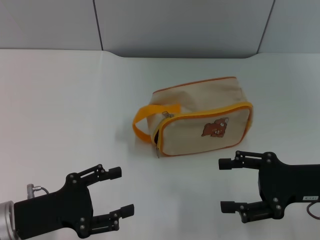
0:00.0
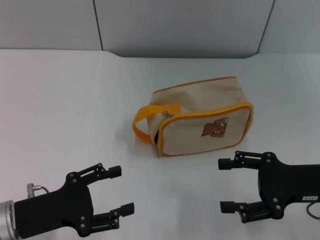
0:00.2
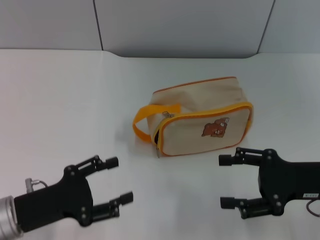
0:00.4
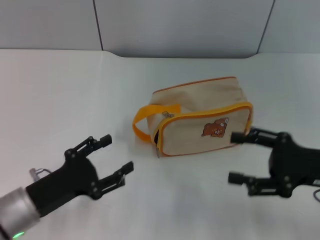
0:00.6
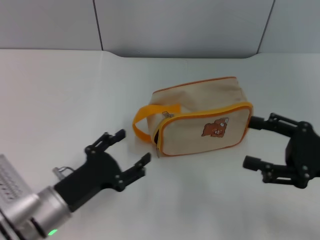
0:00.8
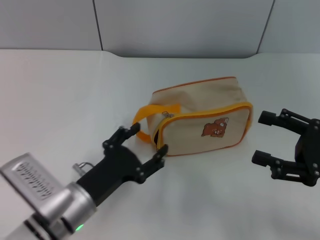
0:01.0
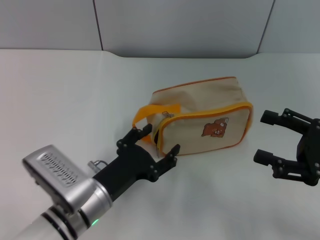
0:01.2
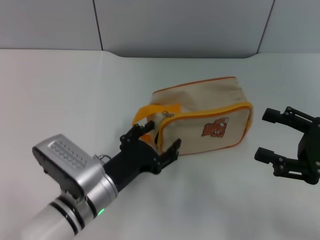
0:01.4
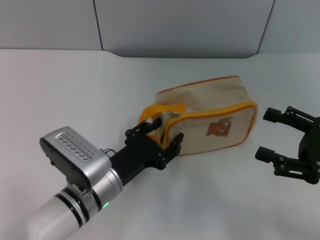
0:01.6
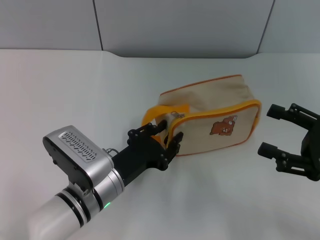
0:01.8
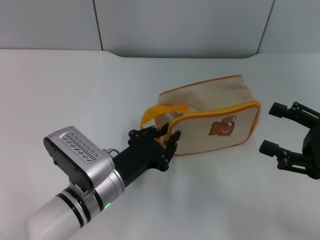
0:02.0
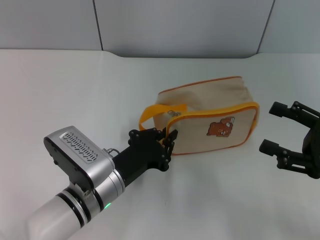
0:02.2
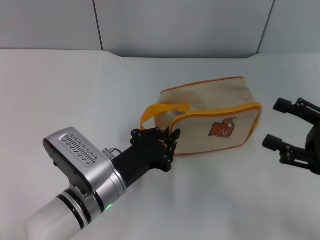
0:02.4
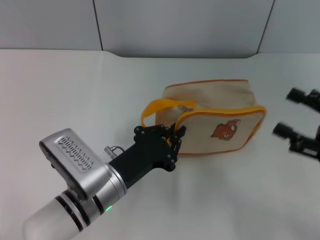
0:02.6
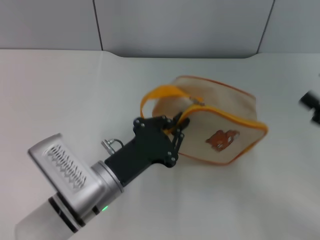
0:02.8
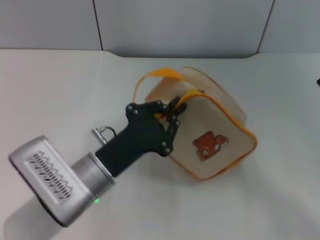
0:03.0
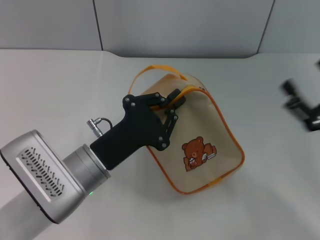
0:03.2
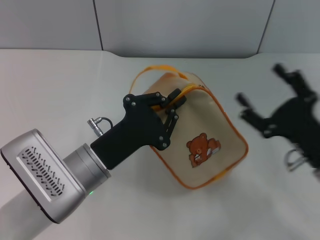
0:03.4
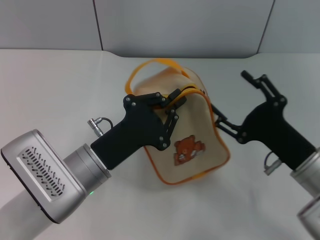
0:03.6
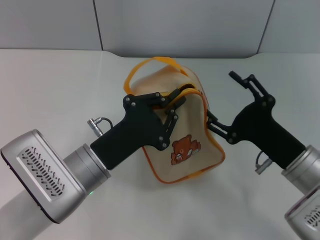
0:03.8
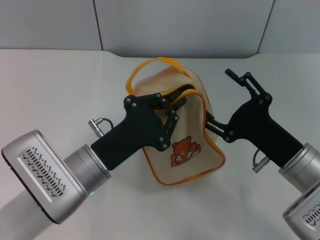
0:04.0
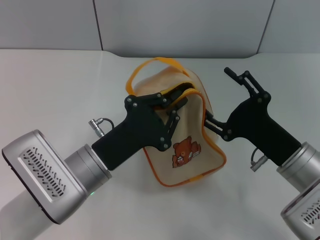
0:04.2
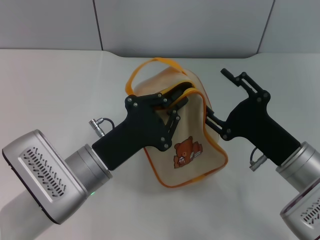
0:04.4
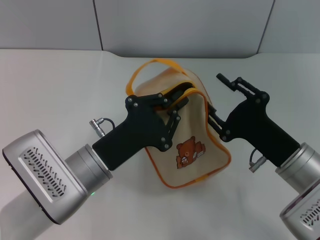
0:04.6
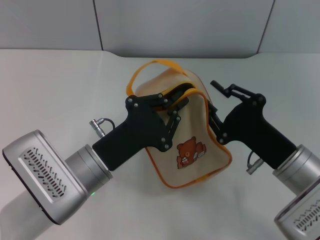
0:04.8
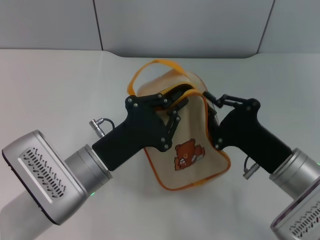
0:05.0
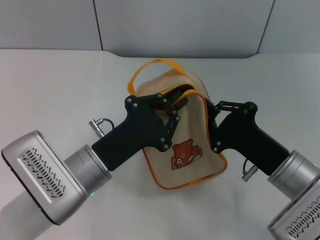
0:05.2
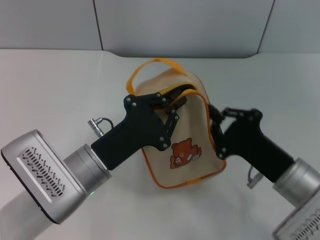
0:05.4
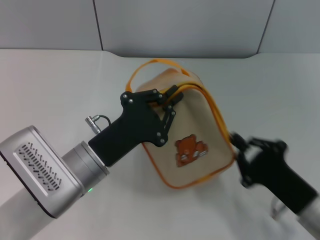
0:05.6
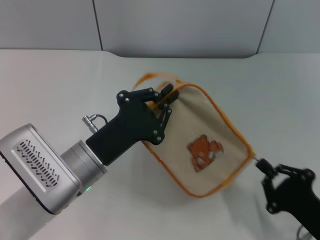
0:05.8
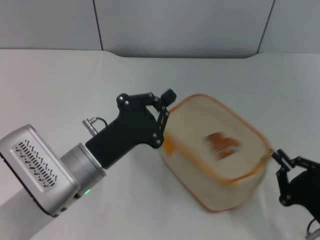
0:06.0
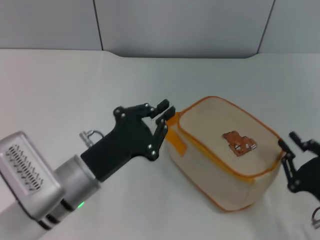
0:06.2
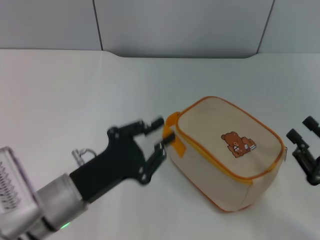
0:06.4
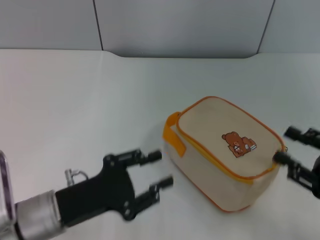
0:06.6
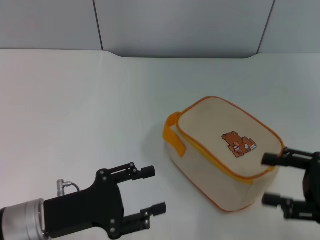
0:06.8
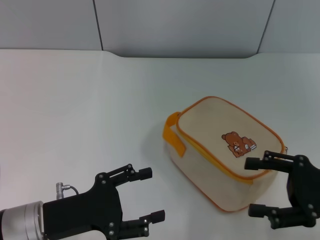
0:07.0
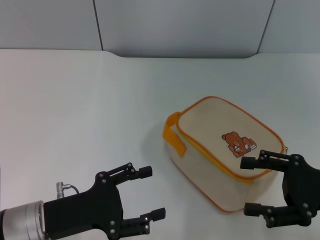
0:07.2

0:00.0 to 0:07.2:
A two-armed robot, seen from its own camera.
Step, 0:00.0 to 0:03.0: Pick up the bag with left gripper.
Step, 0:03.4 to 0:06.2: Unzip the zipper of bag with right gripper.
0:00.0 to 0:01.4: The left gripper goes some 15 cm to the right.
0:01.4 to 0:02.8: The left gripper closes.
0:02.8 to 0:04.4: The right gripper travels to the left by approximately 15 cm.
0:04.4 to 0:05.8: The right gripper is displaced backward, downward and to the right by about 15 cm, and closes.
0:05.8 to 0:07.2: The right gripper goes some 10 cm upward and forward, and opens up; the left gripper goes approximately 10 cm to the left and backward, and opens.

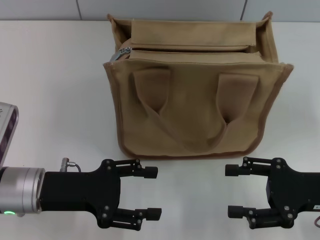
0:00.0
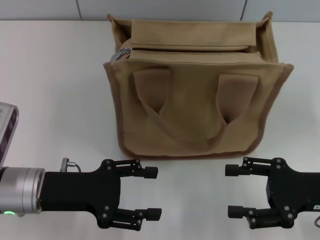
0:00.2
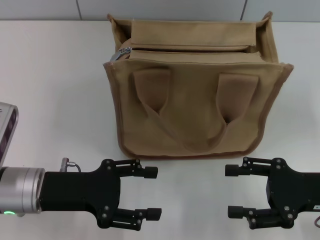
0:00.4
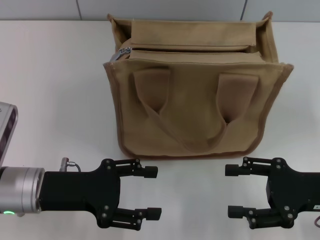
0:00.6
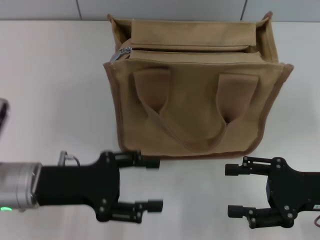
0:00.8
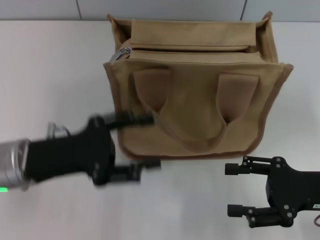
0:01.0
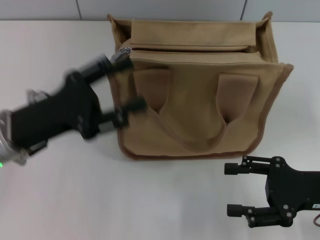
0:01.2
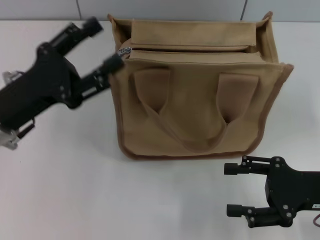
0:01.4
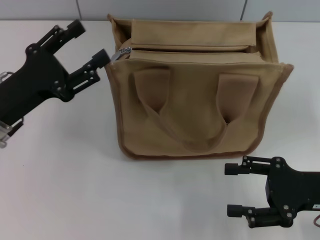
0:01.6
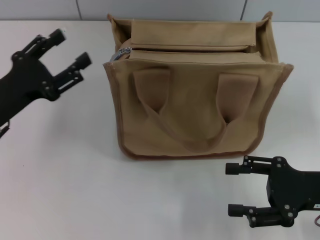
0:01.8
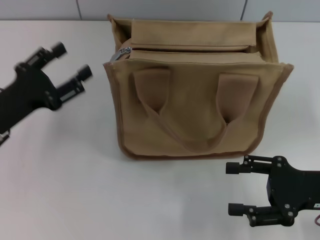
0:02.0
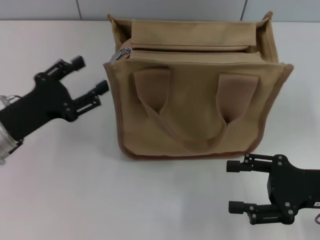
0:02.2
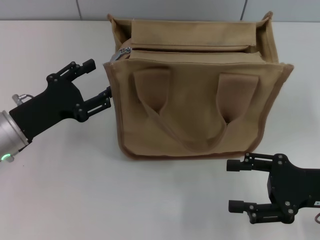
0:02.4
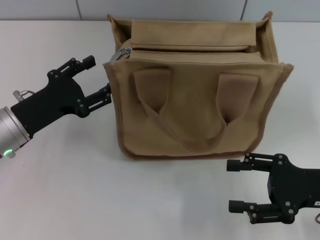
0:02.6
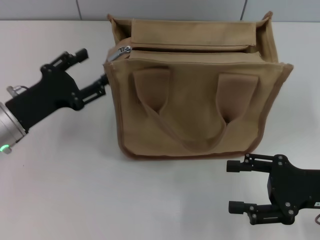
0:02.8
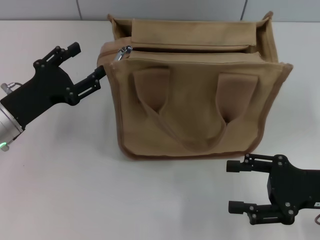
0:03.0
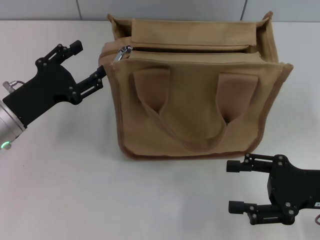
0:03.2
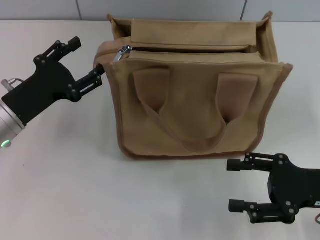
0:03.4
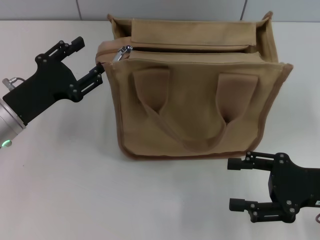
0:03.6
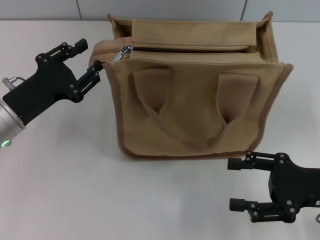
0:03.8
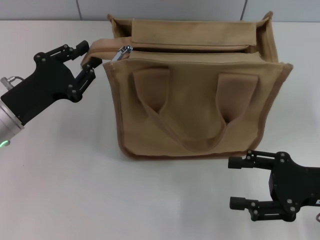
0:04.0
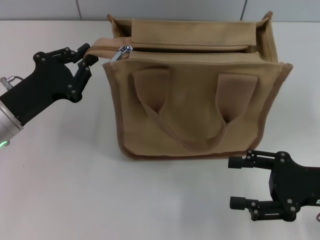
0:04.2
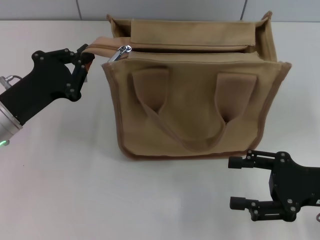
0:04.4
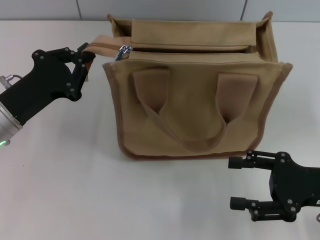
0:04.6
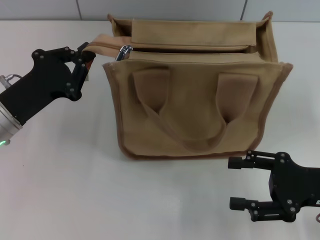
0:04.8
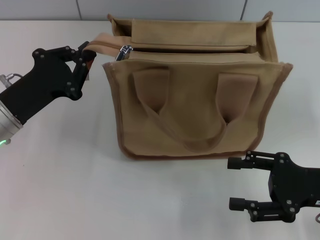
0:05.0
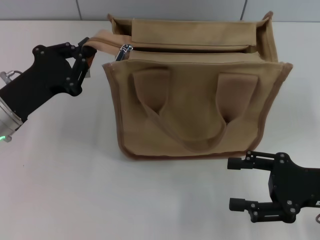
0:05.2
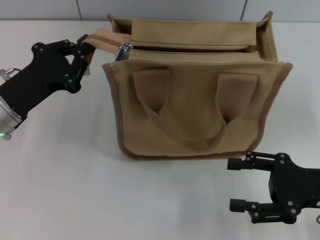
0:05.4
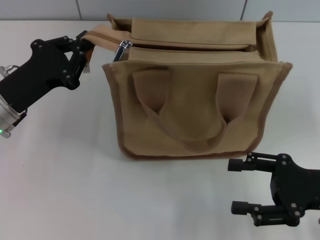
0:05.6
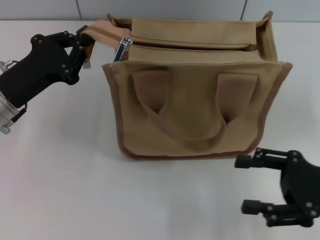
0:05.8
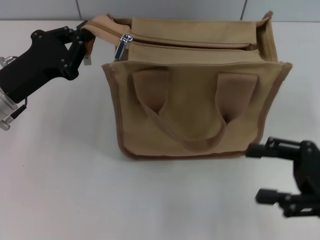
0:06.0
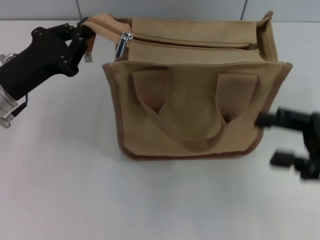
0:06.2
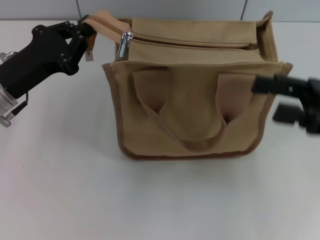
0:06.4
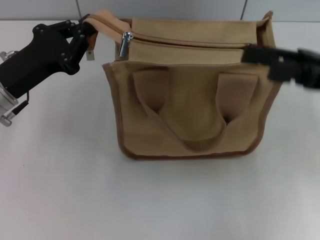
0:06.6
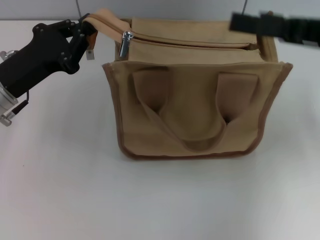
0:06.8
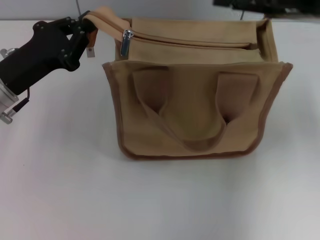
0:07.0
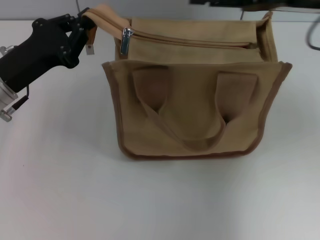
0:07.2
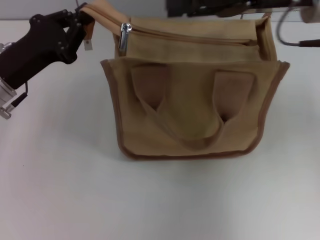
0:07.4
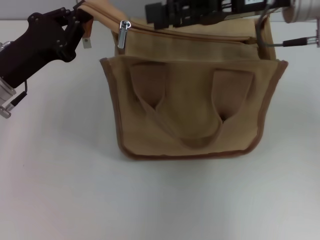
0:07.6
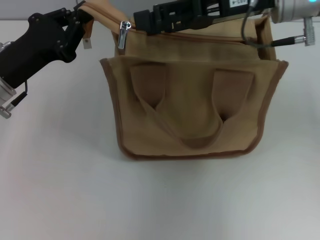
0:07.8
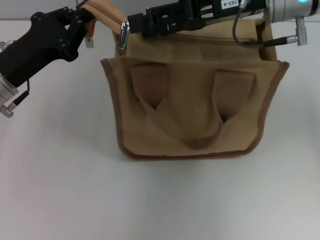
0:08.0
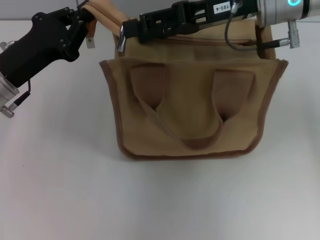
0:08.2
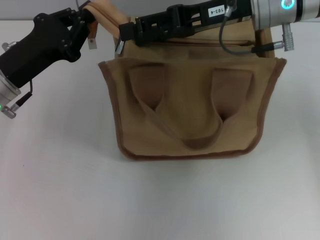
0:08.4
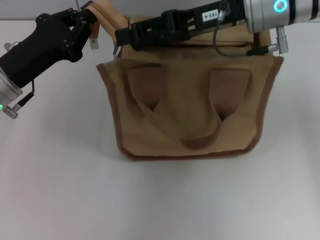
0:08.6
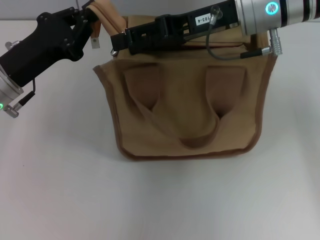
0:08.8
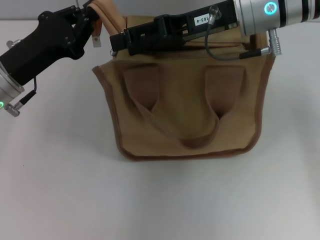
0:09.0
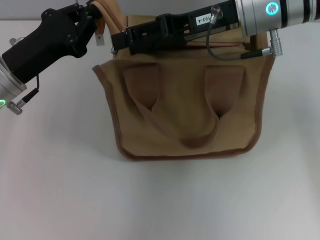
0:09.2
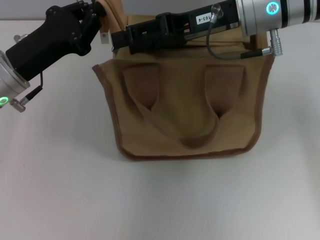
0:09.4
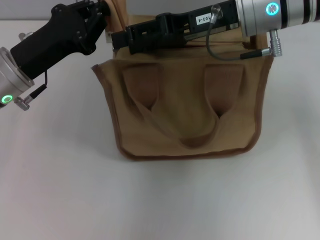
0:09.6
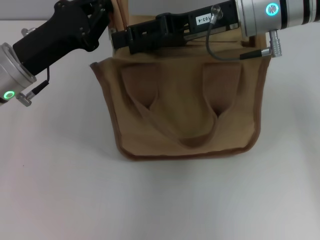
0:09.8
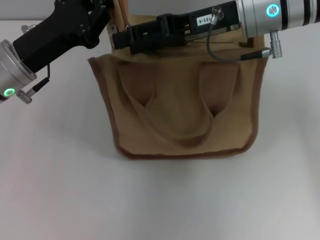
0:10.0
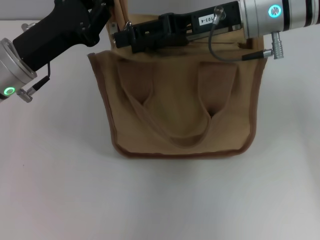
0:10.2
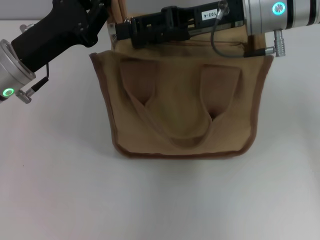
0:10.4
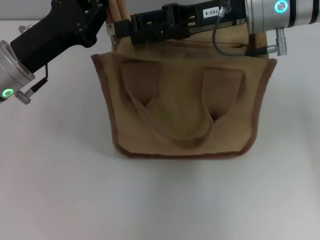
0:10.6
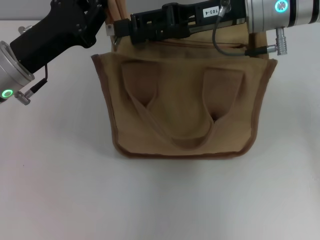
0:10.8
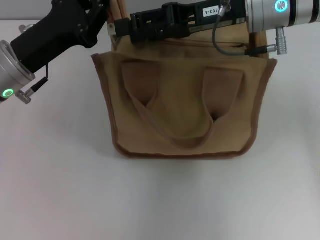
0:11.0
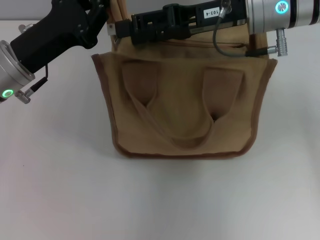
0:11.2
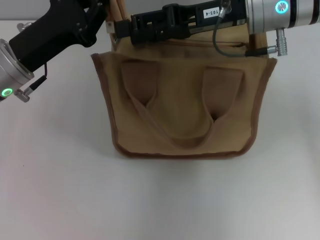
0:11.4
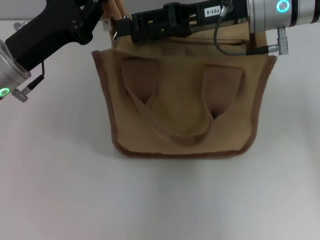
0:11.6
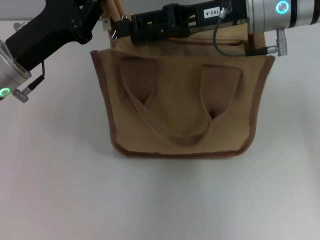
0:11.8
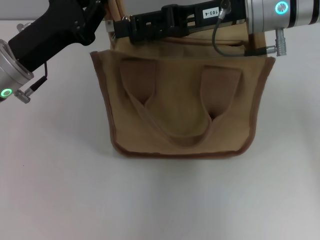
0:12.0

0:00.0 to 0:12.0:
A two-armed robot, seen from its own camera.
0:00.0 to 0:01.6: The left gripper moves roughly 5 cm.
0:01.6 to 0:03.0: The grippers move only a little.
0:03.0 to 0:04.4: The left gripper closes.
0:04.4 to 0:06.0: There are only small adjustments of the grippers.
0:06.0 to 0:07.6: The right gripper goes some 25 cm forward, upward and to the left.
0:07.6 to 0:09.0: The right gripper moves roughly 5 cm.
0:09.0 to 0:10.4: The grippers make only small movements.
0:10.4 to 0:12.0: The two grippers keep their place.

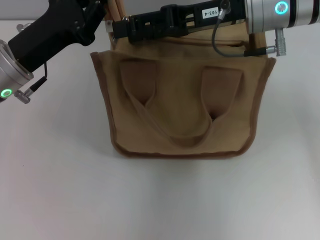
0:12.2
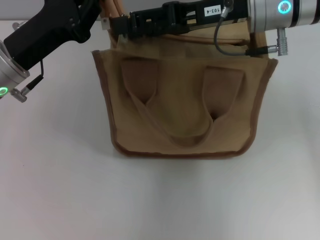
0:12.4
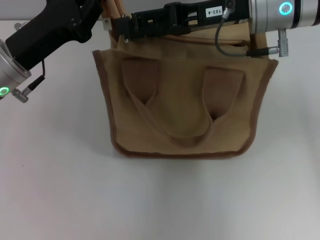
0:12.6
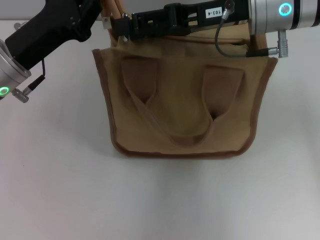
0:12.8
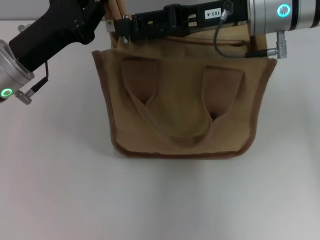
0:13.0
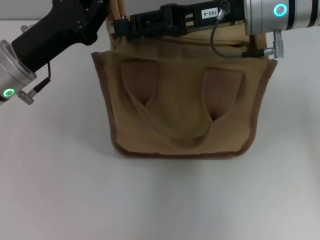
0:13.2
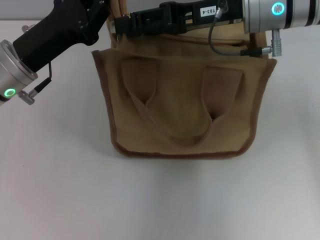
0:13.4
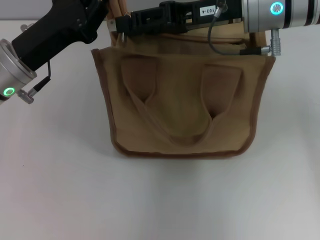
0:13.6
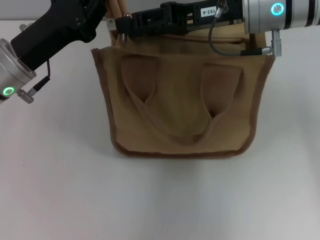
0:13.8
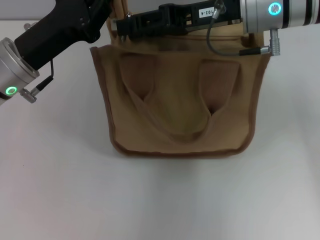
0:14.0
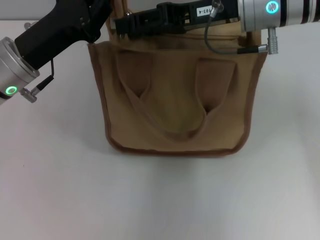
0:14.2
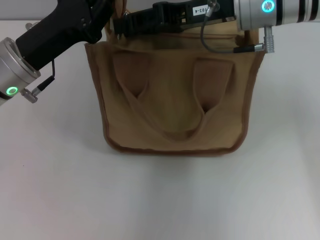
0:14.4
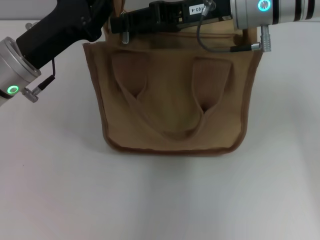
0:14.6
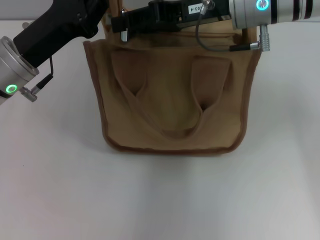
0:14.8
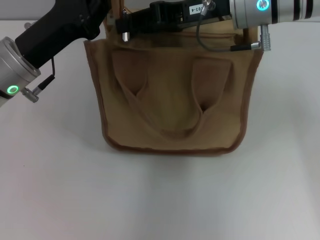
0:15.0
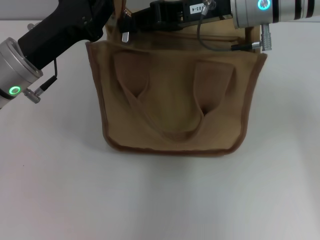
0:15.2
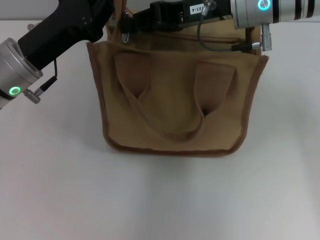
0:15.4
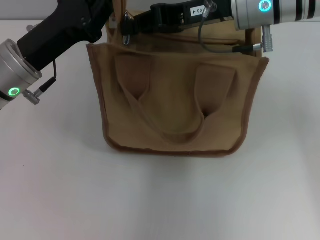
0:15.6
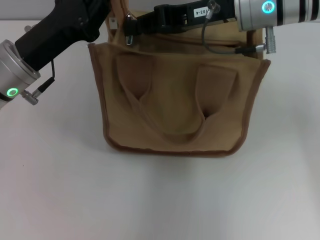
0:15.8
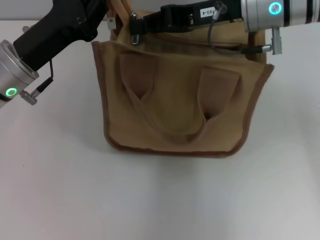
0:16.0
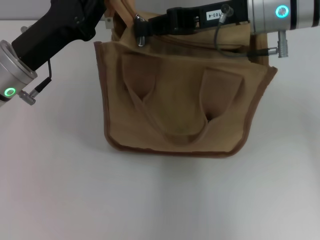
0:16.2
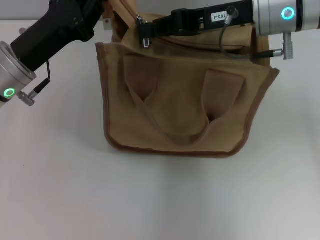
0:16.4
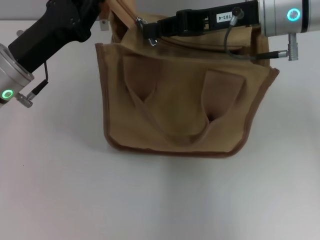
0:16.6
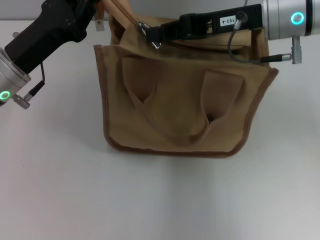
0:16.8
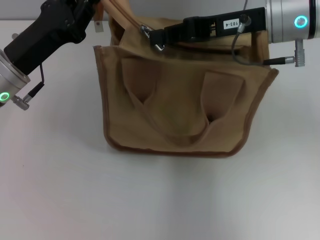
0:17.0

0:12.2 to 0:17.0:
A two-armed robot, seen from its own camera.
0:12.2 to 0:13.8: Both grippers stay about where they are.
0:13.8 to 0:15.4: The right gripper closes its fingers.
0:15.4 to 0:17.0: The grippers make only small movements.
